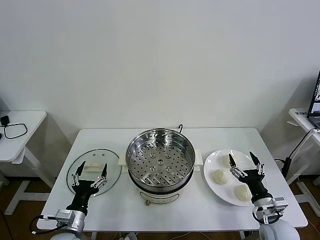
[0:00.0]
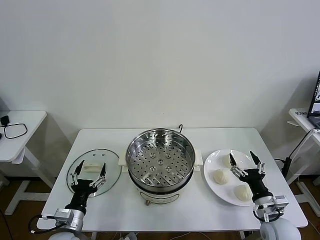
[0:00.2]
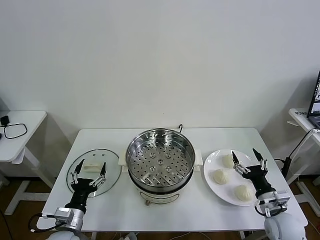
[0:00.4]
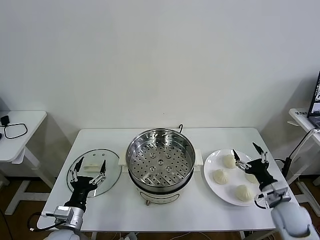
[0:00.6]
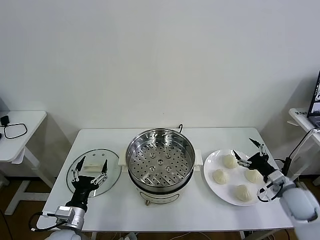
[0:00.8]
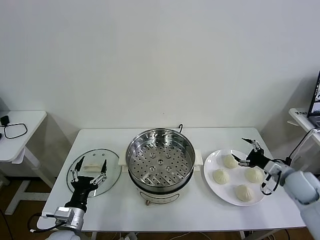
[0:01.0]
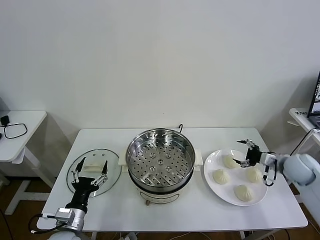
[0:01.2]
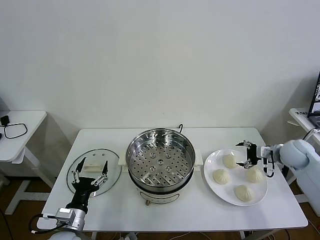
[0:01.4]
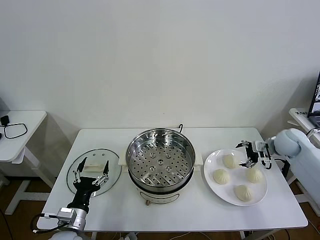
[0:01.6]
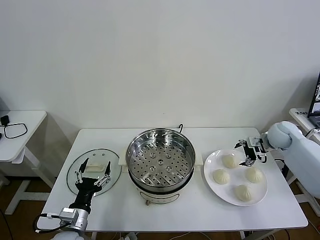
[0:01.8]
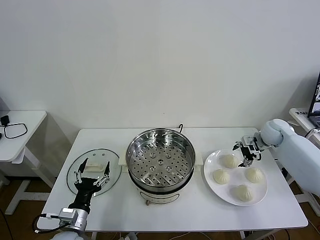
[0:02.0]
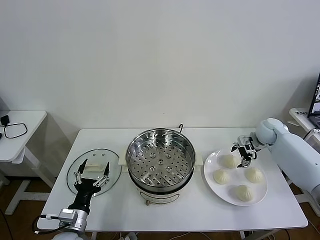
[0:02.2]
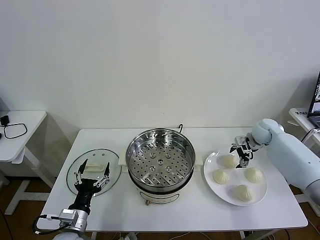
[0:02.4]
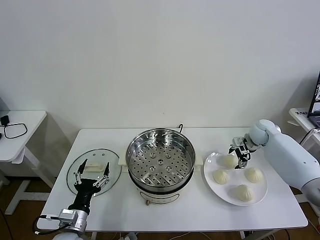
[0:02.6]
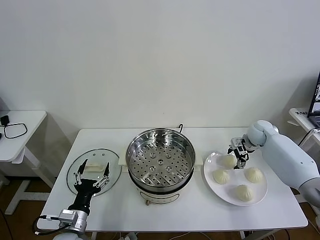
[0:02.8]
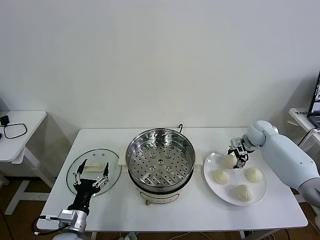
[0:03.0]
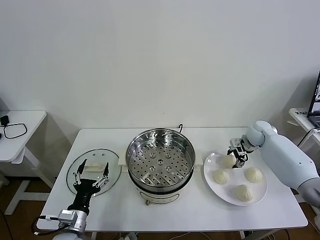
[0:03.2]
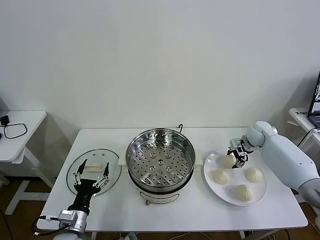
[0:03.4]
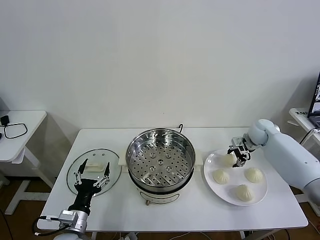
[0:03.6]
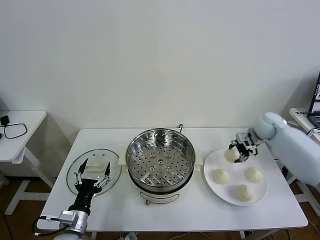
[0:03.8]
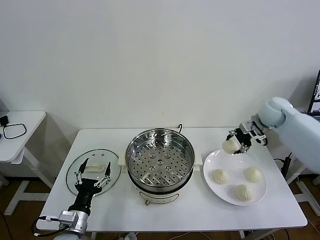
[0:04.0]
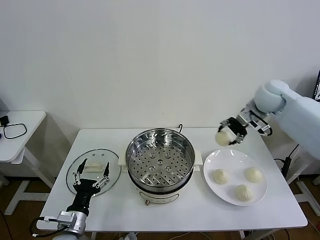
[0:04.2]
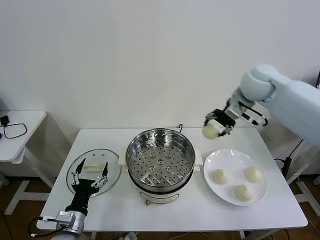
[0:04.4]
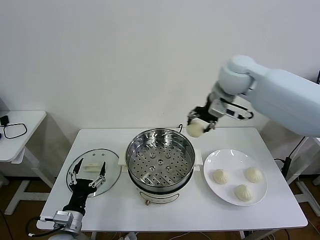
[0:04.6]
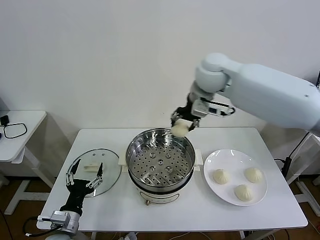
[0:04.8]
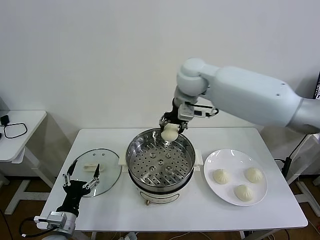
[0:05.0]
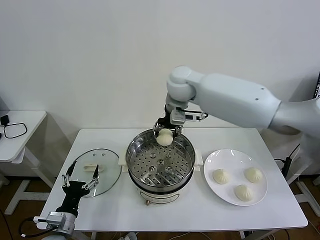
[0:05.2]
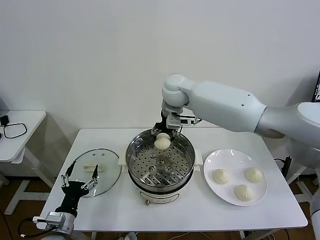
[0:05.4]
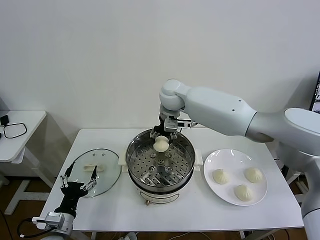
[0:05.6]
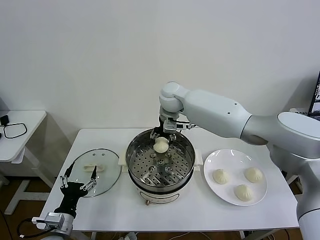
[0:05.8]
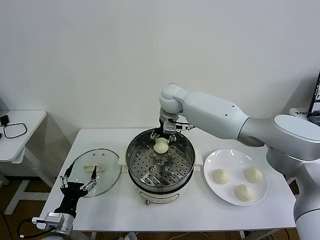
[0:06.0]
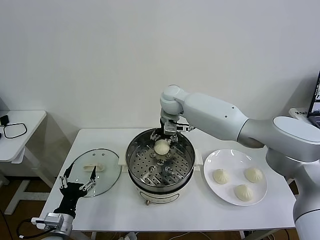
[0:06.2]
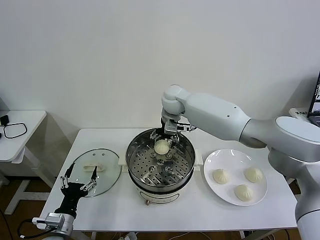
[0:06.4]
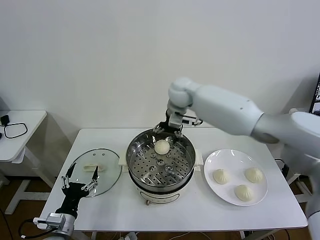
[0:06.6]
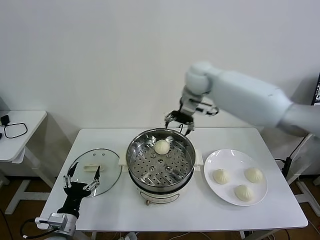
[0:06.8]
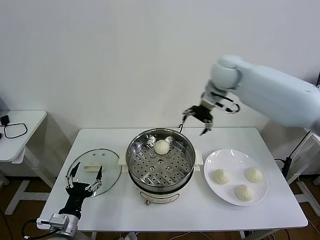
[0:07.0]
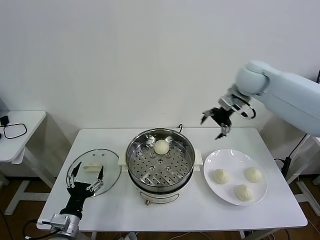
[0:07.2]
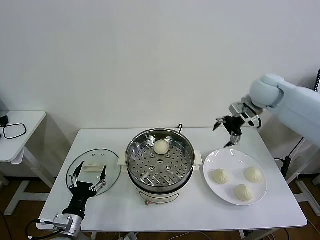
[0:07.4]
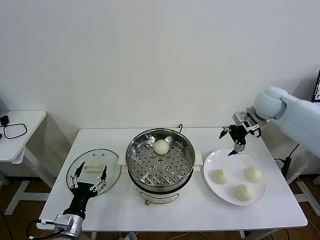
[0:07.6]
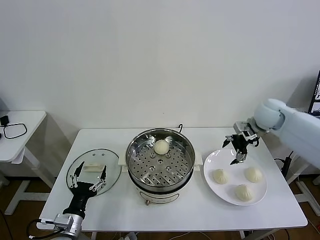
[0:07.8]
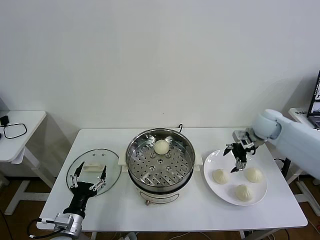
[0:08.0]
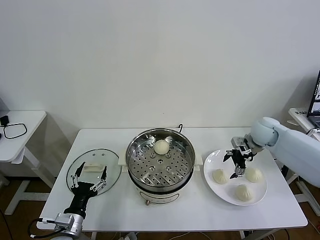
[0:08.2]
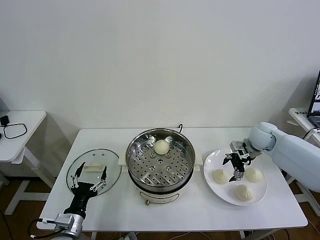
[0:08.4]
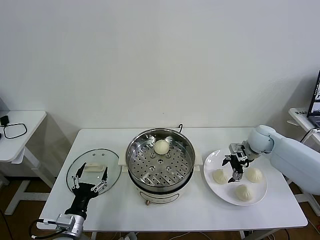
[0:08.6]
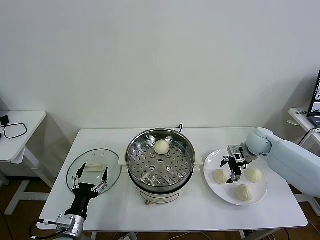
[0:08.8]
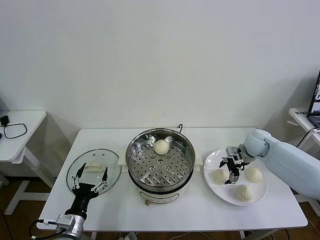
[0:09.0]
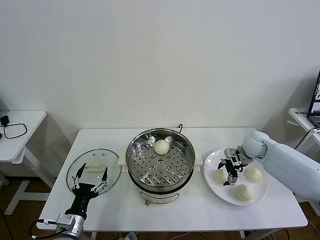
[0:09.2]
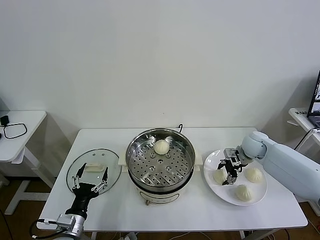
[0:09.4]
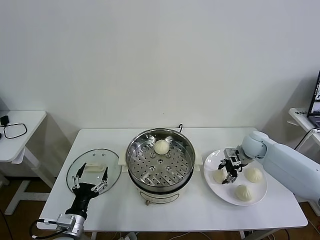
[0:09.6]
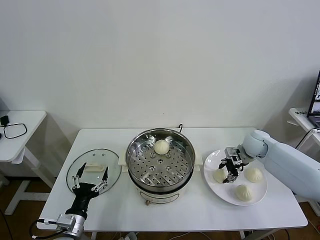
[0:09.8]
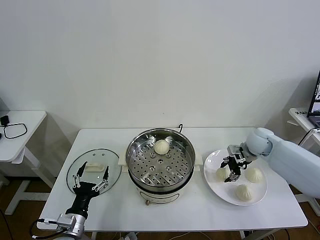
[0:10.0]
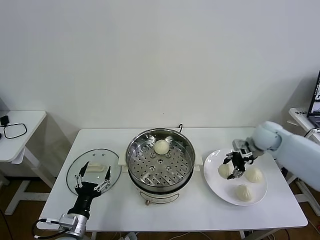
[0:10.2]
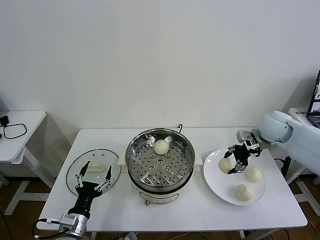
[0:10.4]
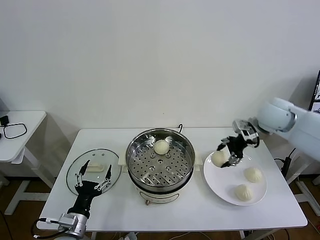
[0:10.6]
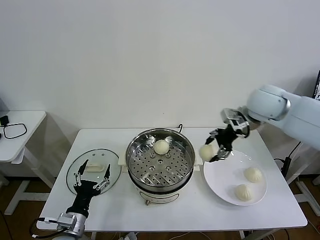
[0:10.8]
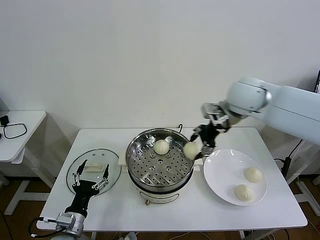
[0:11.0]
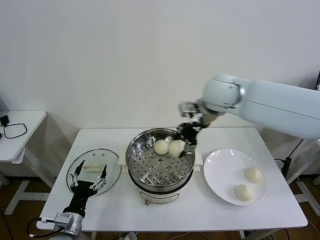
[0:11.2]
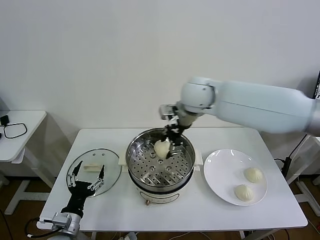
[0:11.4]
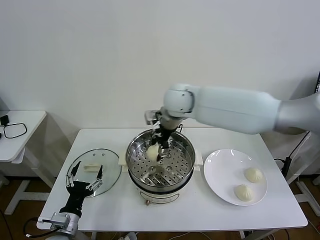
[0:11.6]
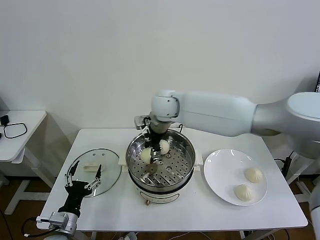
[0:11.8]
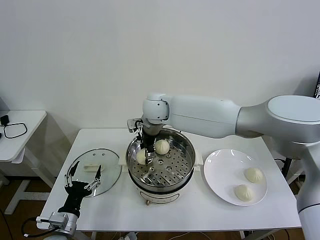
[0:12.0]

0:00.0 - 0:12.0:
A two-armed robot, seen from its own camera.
Task of the whole recording: take steamed baozi put them in steamer then cover it.
Step, 0:00.0 - 0:03.2: Grasp the baozi in the plate with right gripper.
Step, 0:03.4 - 0:06.2: Place the baozi on the steamer with right gripper.
Step, 0:06.6 - 0:09.6: Grasp the baozi in the plate with right gripper.
0:01.6 - 0:03.0: The right gripper heads forward and to the left, covering about 10 cm, and closes its fingers.
0:03.0 - 0:04.4: The right gripper travels upward and to the left by about 30 cm.
0:04.4 - 0:06.0: The right gripper travels to the left and downward by approximately 25 cm.
0:06.0 - 0:07.6: The right gripper moves to the right, about 30 cm, and opens.
0:07.6 - 0:09.0: The right gripper moves downward, roughly 15 cm.
0:09.0 - 0:10.4: The right gripper travels upward by approximately 15 cm, and closes.
0:10.4 - 0:12.0: The right gripper heads to the left, covering some 40 cm.

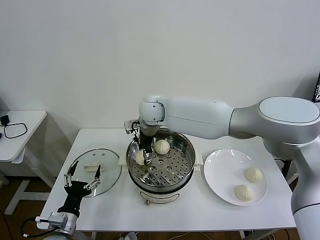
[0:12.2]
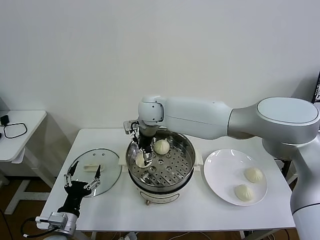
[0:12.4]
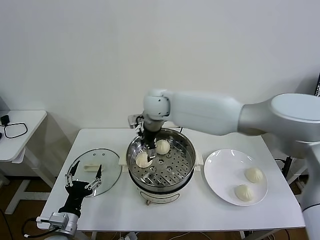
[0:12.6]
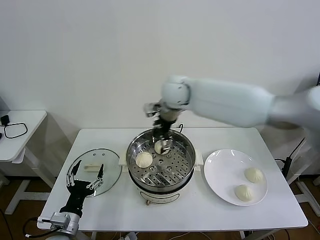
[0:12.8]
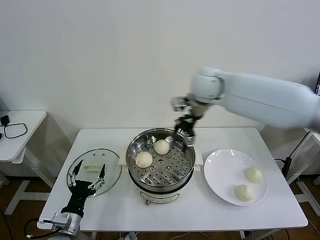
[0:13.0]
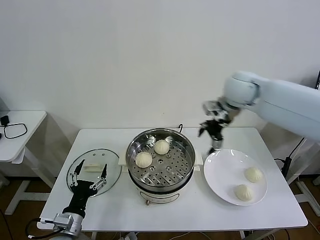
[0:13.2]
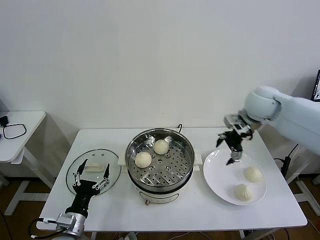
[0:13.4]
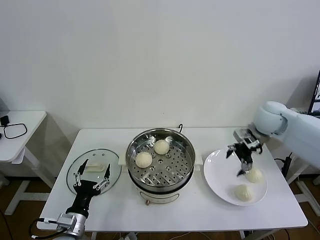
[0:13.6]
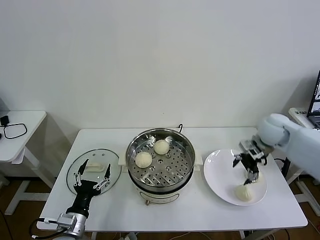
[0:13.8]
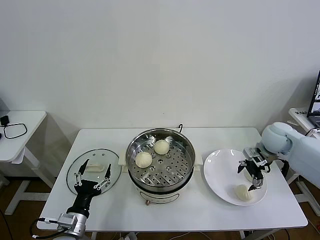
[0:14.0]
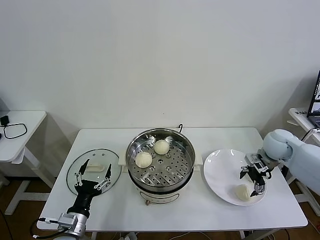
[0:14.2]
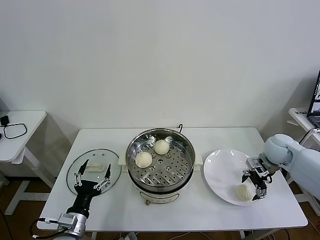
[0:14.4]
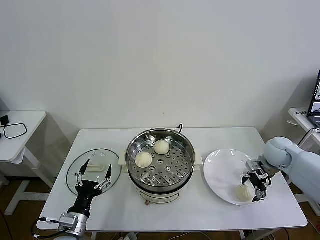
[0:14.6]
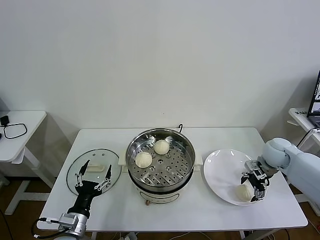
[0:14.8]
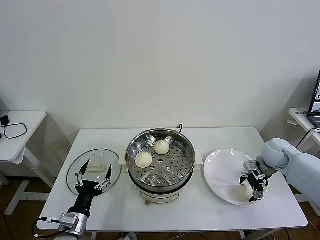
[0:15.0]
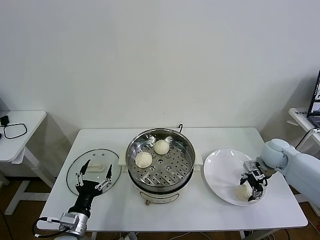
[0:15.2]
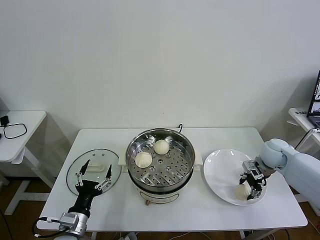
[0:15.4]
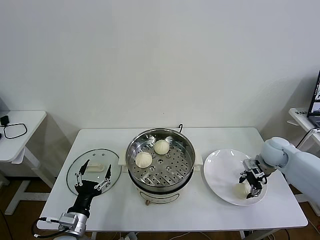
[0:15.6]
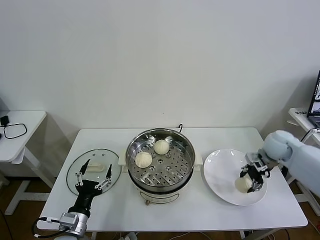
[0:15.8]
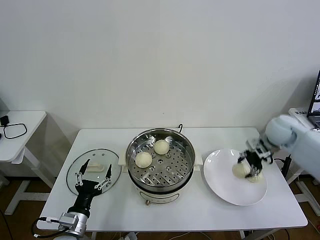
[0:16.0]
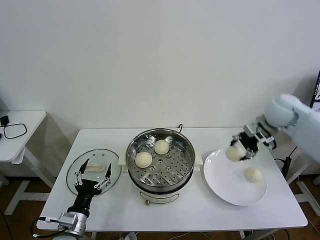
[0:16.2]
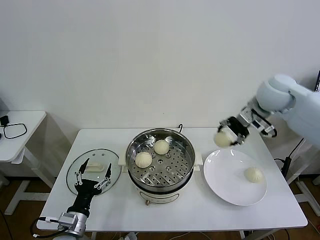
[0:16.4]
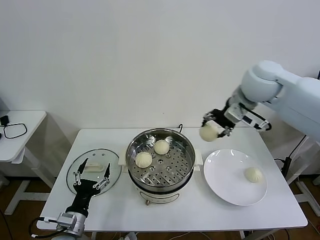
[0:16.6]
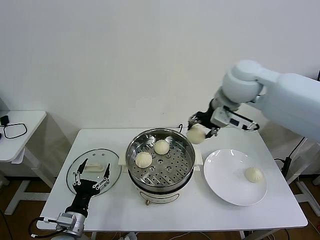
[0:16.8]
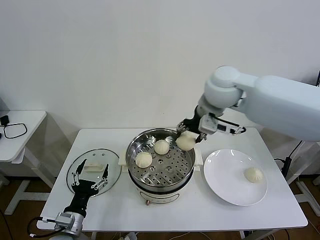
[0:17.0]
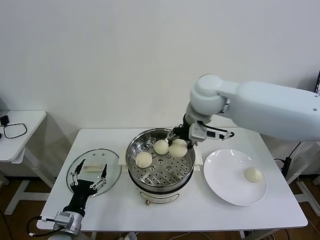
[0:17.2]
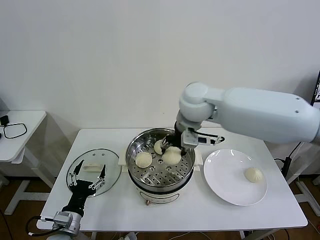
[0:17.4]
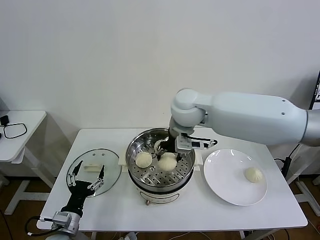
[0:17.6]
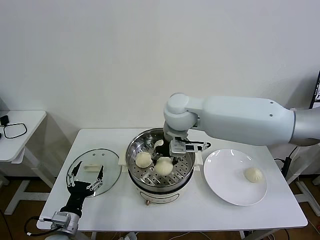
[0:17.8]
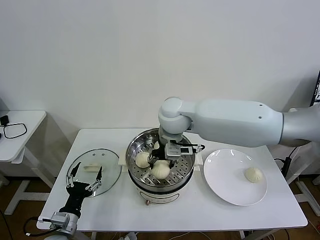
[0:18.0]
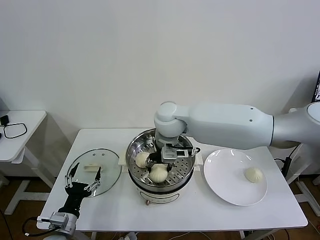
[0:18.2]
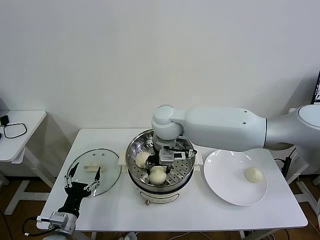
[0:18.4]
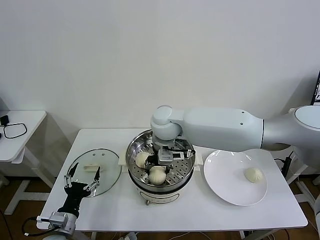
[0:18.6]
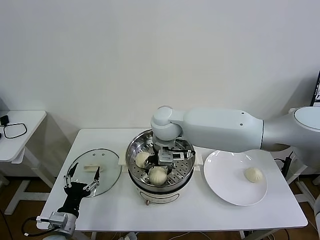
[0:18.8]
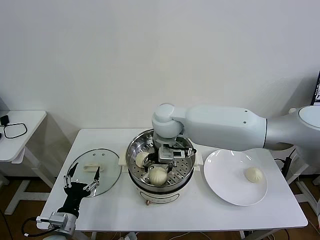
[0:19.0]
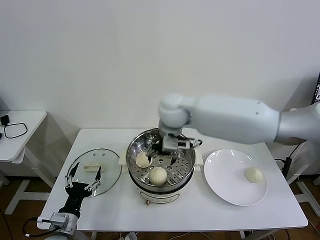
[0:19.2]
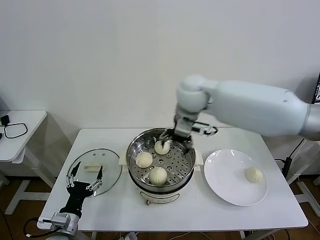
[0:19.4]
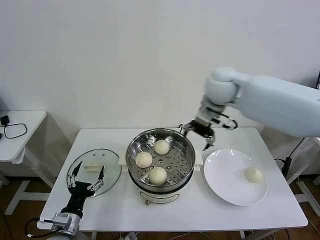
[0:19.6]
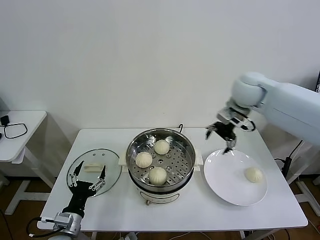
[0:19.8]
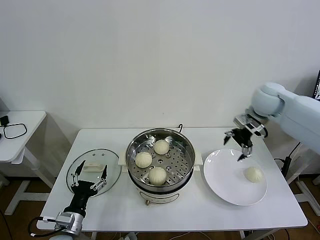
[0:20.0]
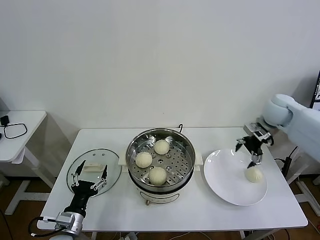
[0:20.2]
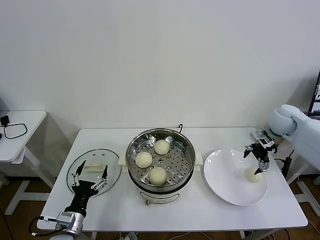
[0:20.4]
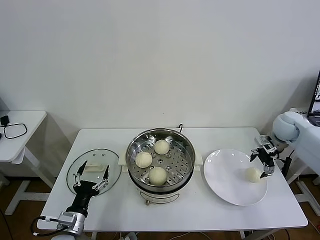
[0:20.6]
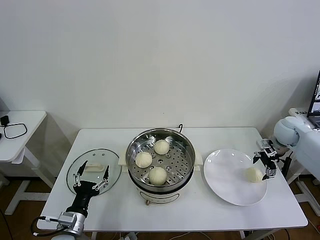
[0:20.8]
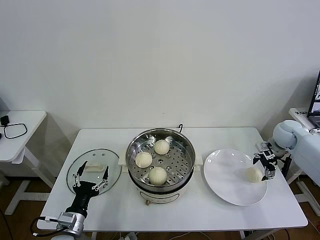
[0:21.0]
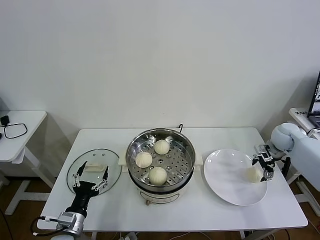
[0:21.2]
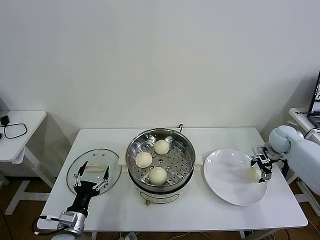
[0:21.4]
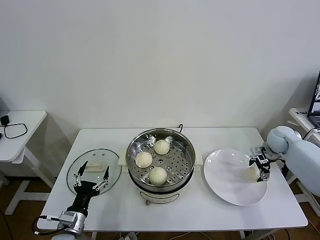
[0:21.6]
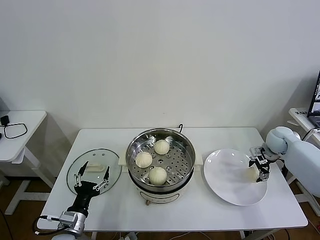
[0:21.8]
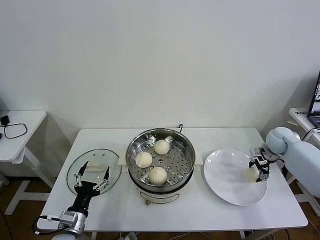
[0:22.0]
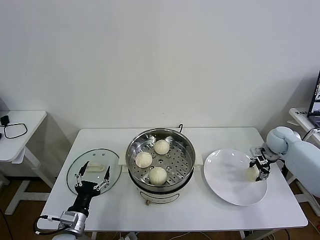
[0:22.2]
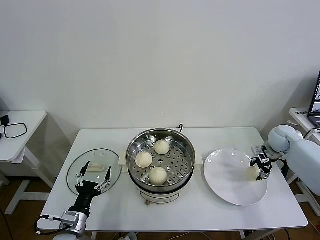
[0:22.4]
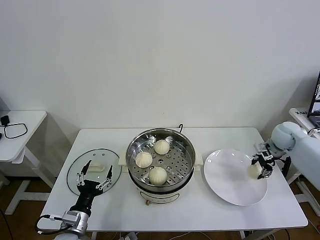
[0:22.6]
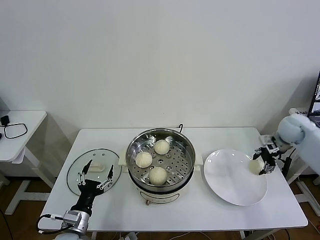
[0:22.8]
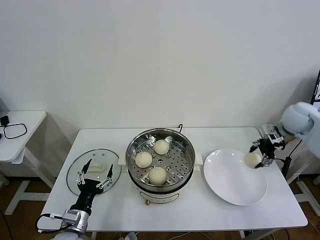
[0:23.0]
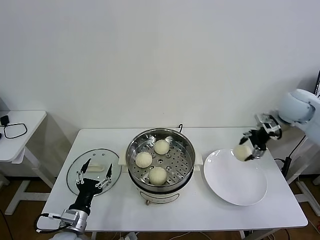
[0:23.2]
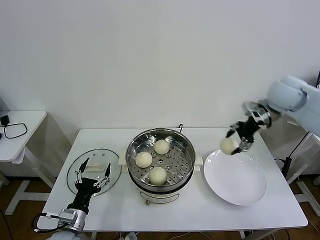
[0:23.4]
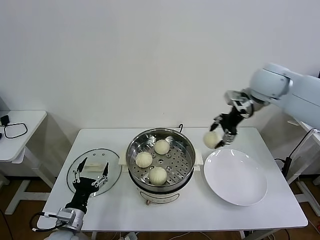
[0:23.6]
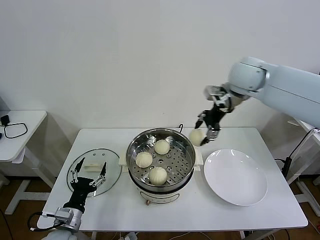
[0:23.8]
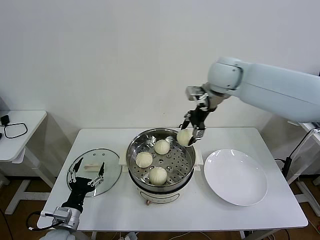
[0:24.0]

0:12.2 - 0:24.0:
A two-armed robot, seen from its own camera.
Task of the whole recording: take steamed baozi put them in steamer then cover it.
Step, 0:12.6 - 0:15.4: Grasp the baozi in the plate with right gripper.
Step, 0:15.6 - 0:18.8: Place the baozi on the steamer with right gripper.
Step, 0:19.0 - 0:22.0: Grasp the baozi in the plate with right gripper.
0:12.2 - 0:13.6: The right gripper moves to the right, roughly 40 cm.
0:13.6 - 0:15.2: The right gripper travels downward and to the right by roughly 15 cm, and closes its fingers.
0:15.2 - 0:16.6: The right gripper goes approximately 35 cm upward and to the left.
0:16.6 - 0:18.2: The right gripper moves to the left and downward, approximately 25 cm.
0:18.2 - 0:19.6: The right gripper goes about 20 cm to the right and upward, and opens its fingers.
0:19.6 - 0:21.0: The right gripper goes about 35 cm to the right and downward.
0:21.0 - 0:22.6: The right gripper closes its fingers.
0:22.6 - 0:24.0: The right gripper goes some 35 cm to the left and upward.
